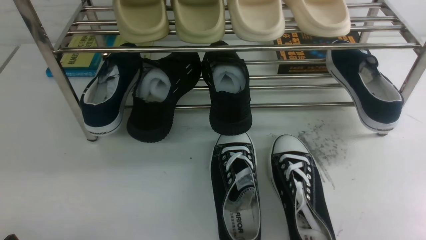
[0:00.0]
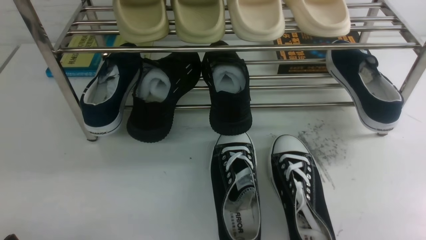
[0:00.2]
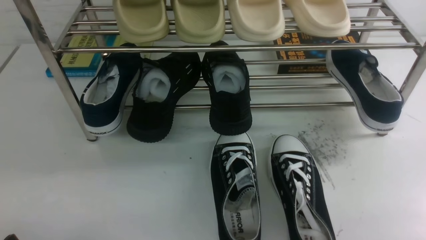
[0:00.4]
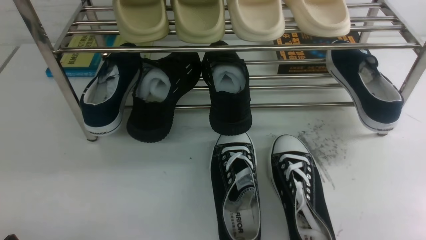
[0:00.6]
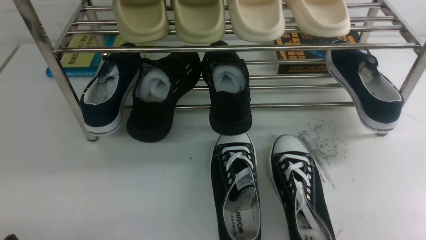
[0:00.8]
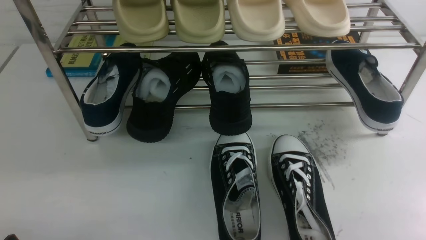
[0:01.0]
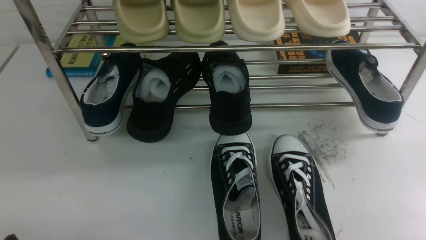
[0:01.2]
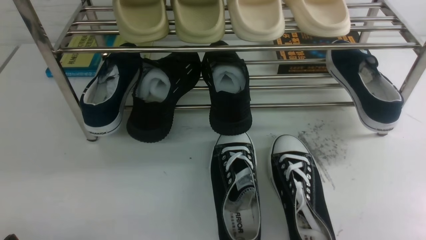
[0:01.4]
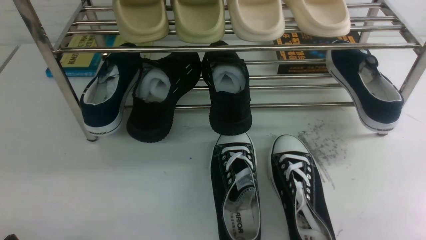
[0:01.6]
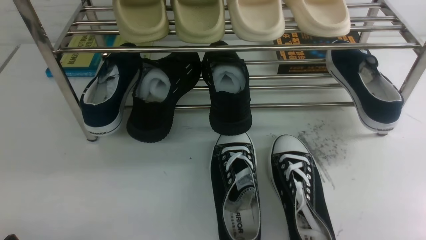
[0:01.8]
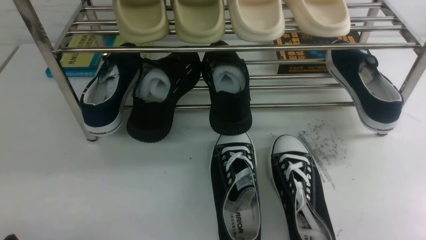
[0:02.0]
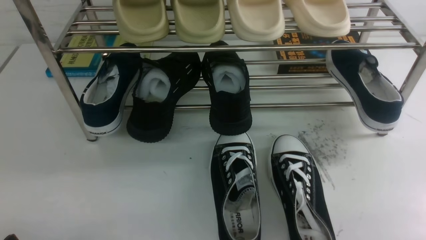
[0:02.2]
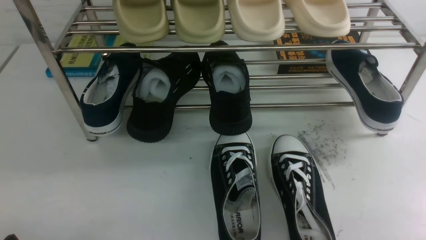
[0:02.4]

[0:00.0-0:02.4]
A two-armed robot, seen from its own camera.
0:00.0 to 0:02.4: The two grippers keep their place.

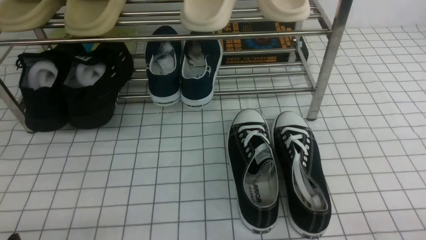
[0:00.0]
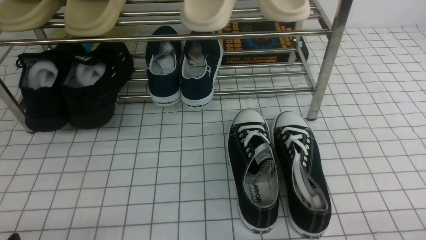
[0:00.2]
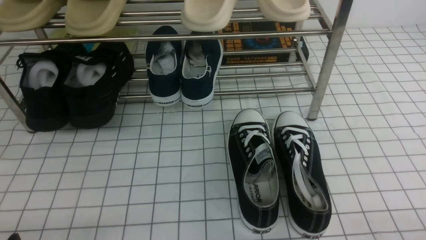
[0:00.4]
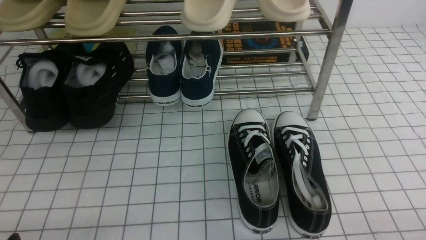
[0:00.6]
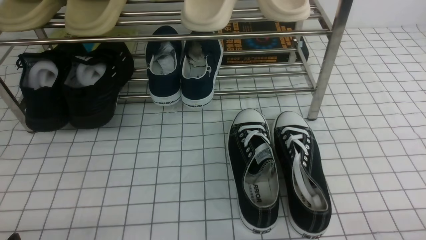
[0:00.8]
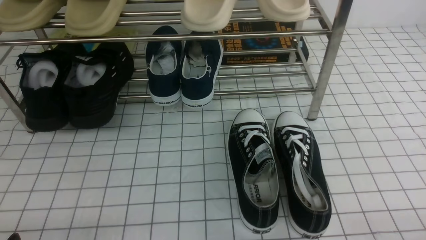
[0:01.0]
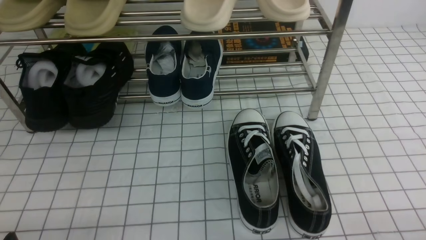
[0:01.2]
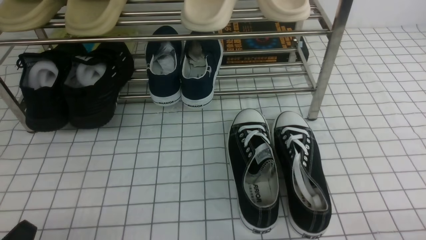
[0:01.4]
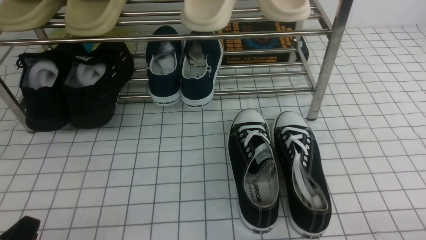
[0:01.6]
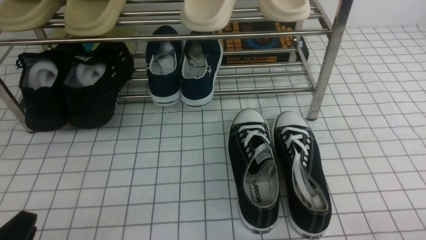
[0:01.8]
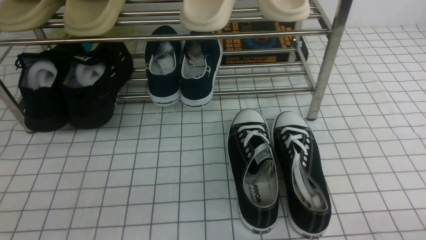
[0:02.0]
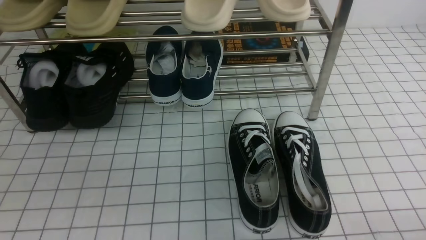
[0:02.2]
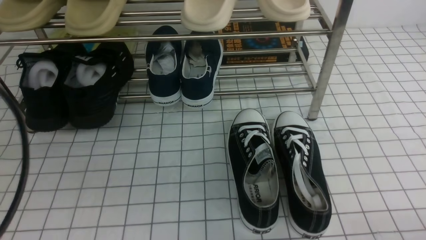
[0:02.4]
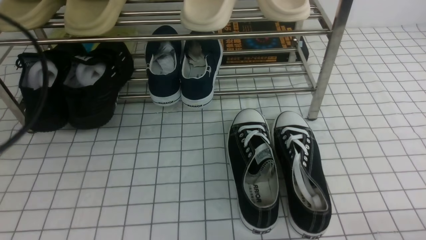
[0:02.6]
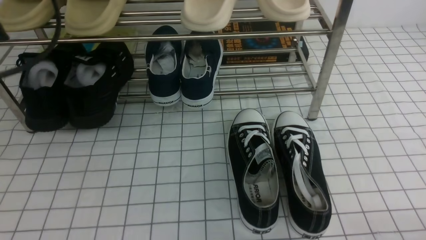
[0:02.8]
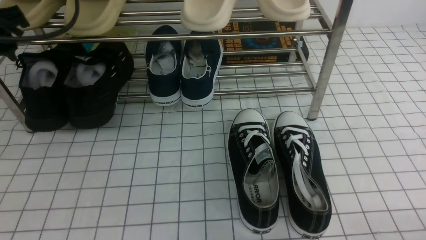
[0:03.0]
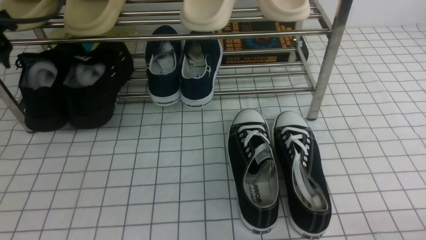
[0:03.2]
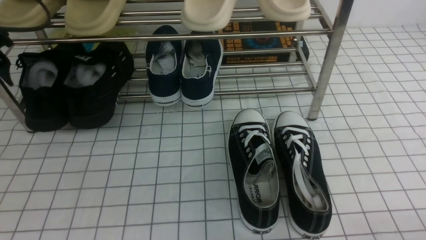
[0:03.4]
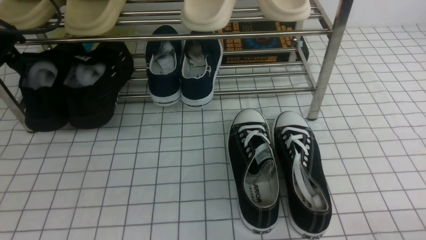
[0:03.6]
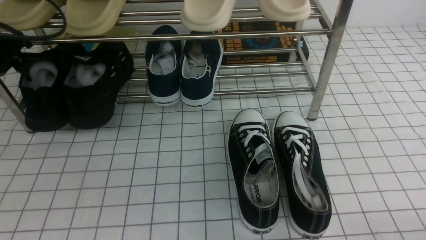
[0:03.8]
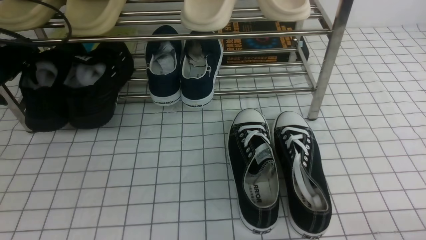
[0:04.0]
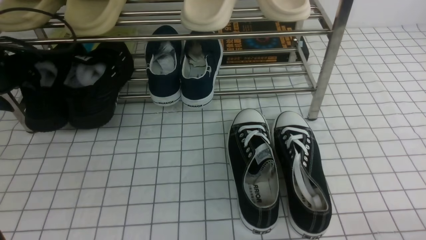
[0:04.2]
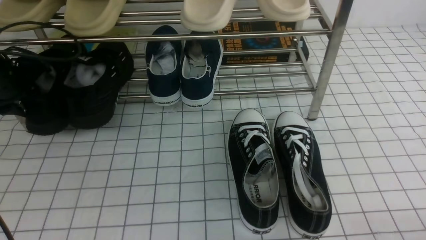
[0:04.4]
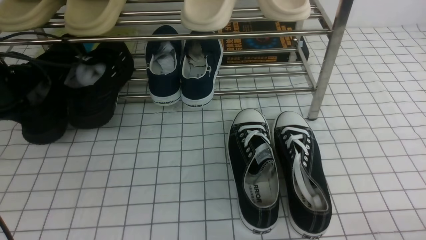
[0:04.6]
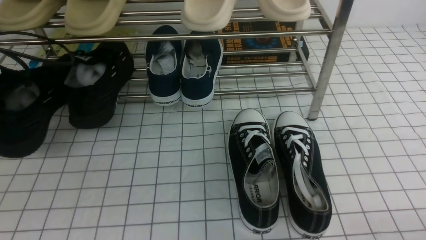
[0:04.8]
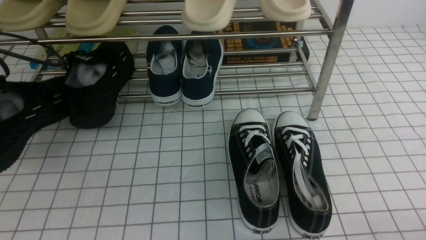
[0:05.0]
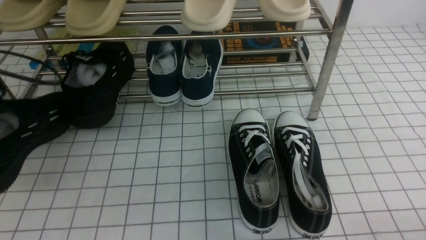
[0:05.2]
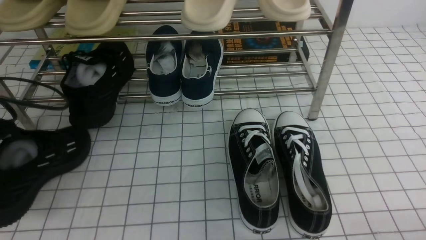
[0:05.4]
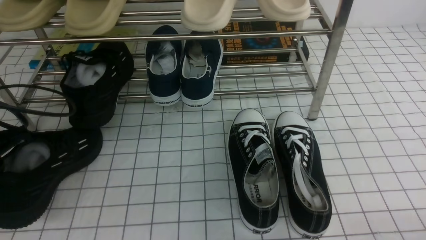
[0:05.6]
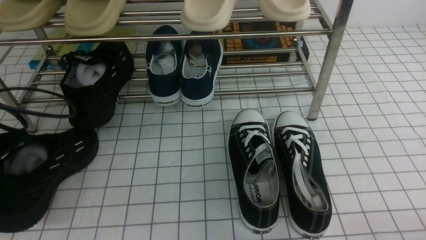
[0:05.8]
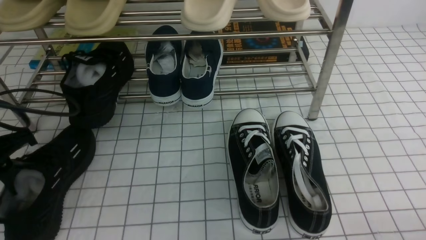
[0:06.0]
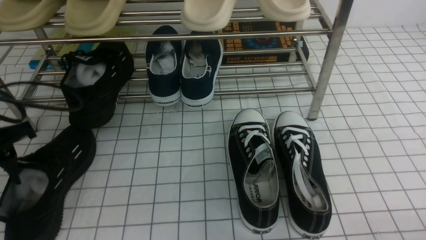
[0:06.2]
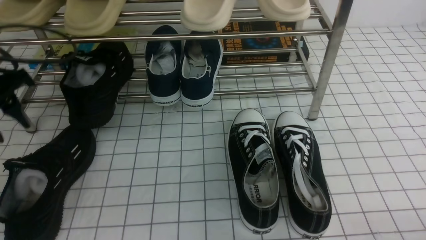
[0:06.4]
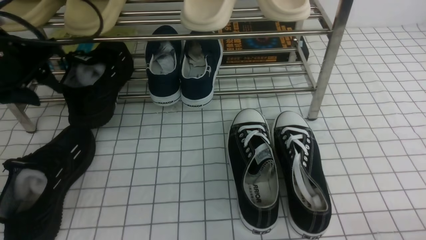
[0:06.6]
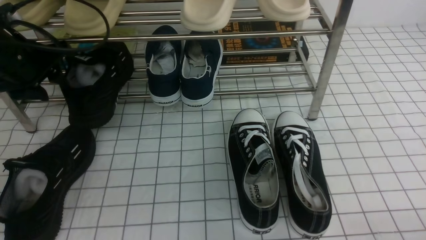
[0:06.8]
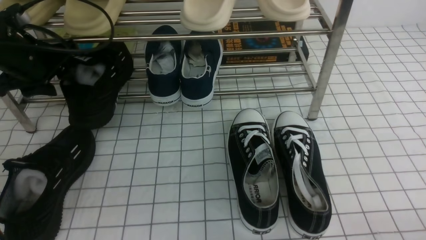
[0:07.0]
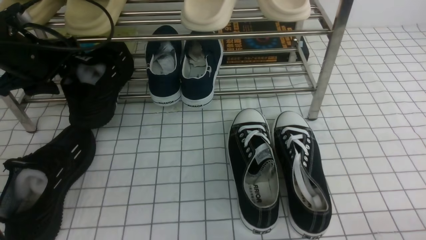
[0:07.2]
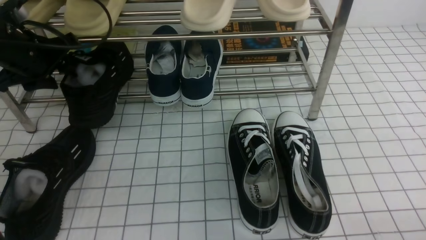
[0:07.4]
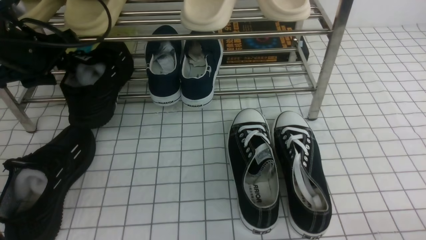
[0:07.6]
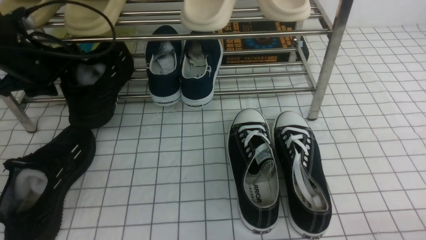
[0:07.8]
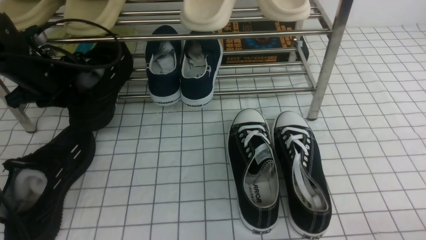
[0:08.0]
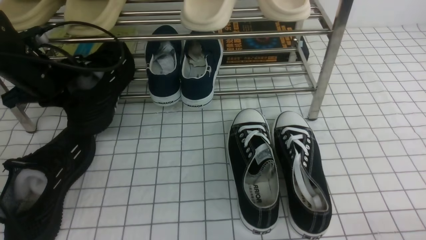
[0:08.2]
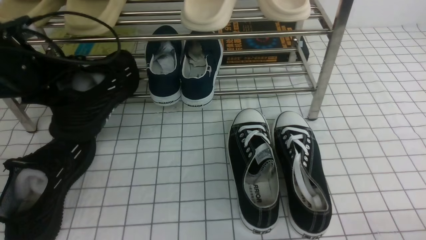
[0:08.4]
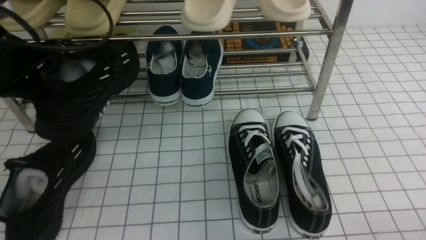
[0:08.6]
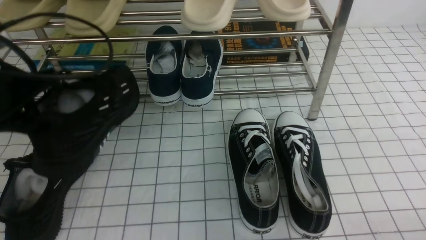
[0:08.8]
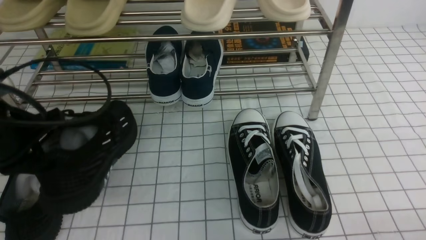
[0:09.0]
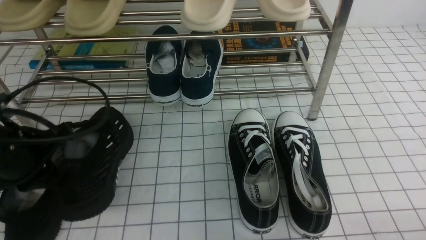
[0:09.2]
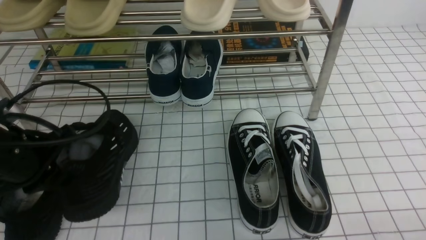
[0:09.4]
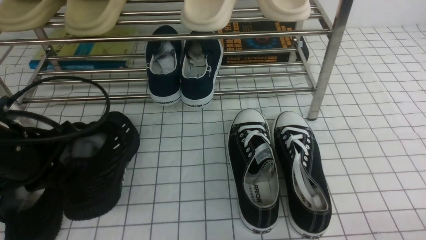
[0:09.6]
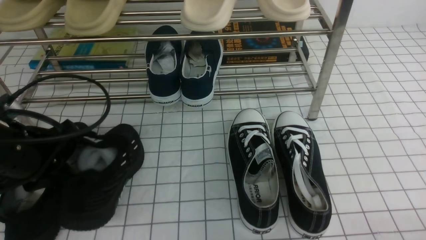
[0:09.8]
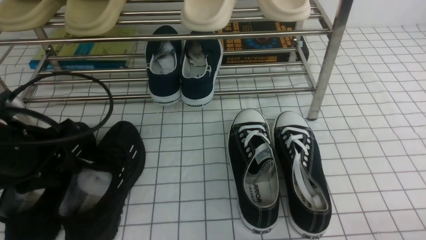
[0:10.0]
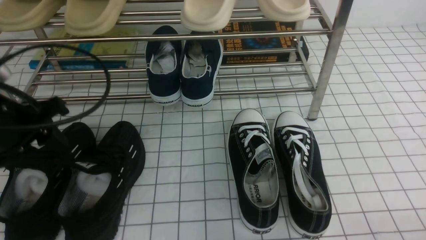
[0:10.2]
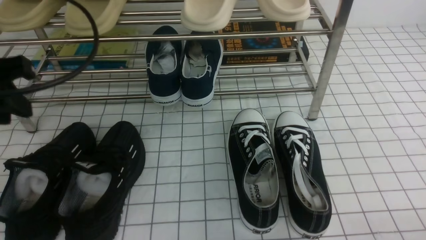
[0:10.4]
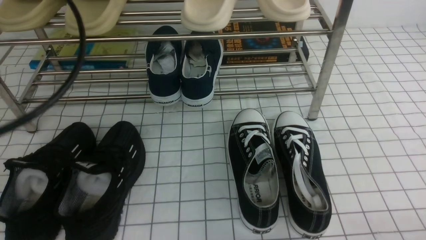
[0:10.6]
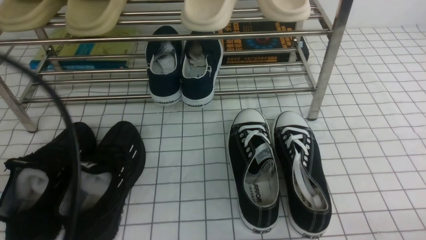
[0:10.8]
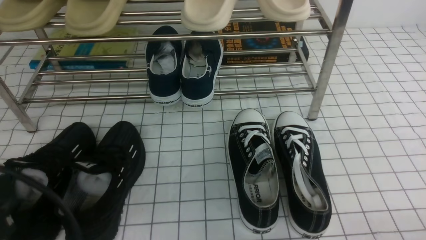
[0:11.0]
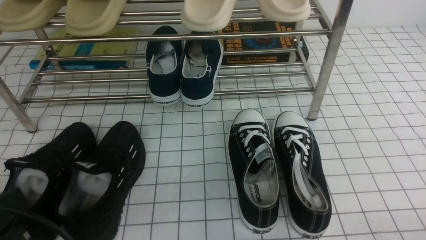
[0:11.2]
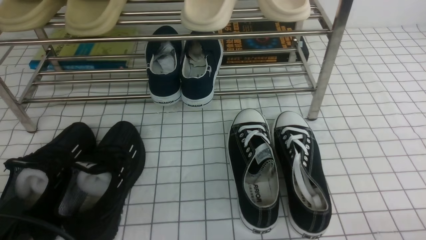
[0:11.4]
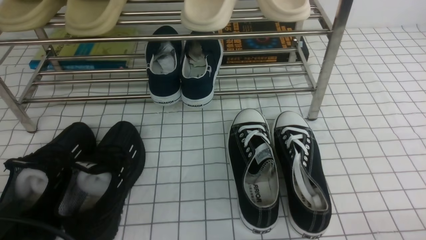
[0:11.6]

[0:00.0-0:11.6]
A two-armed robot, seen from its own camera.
Step, 0:00.0 to 0:04.4: use the left arm to clamp a shoe on the left side of the shoe rack.
Step, 0:04.8 to 0:06.2: Use your left arm to remove the clamped shoe from the shoe rack and put it down.
Step, 0:06.4 to 0:08.0: use the left arm to clamp a shoe on the left side of the shoe rack.
Step, 0:08.2 to 0:10.0: Use your left arm to remove the clamped shoe from the shoe rack and put it down.
0:01.4 to 0:02.8: The left gripper moves upward and forward, about 30 cm, and closes and opens again.
0:02.8 to 0:04.4: The left gripper goes about 20 cm forward, downward and to the left, and opens, then closes again.
0:04.4 to 0:05.8: The left gripper travels backward by about 10 cm.
0:05.8 to 0:07.2: The left gripper is displaced forward by roughly 10 cm, and opens up.
0:07.2 to 0:08.8: The left gripper heads backward, covering approximately 10 cm, and closes.
0:08.8 to 0:10.2: The left gripper opens up.
0:10.2 to 0:11.6: The left gripper goes some 20 cm backward and downward, and closes its fingers.

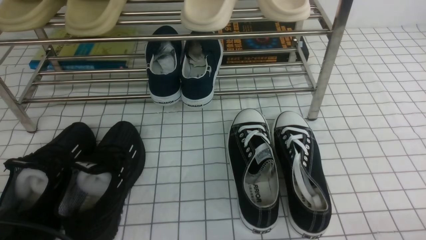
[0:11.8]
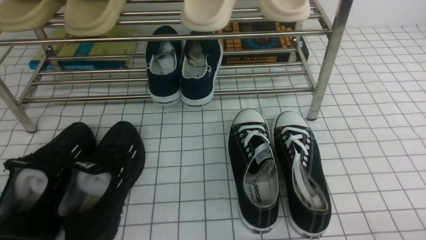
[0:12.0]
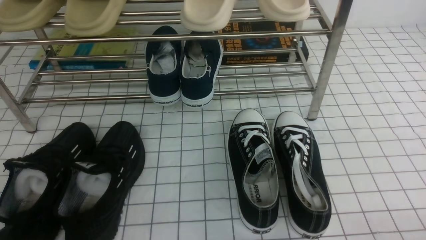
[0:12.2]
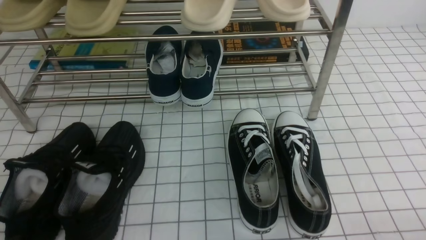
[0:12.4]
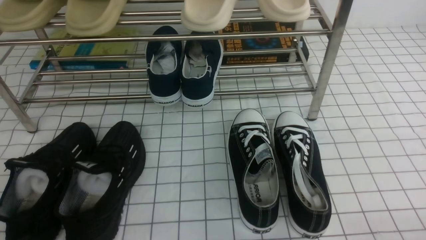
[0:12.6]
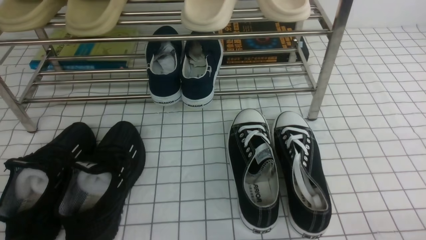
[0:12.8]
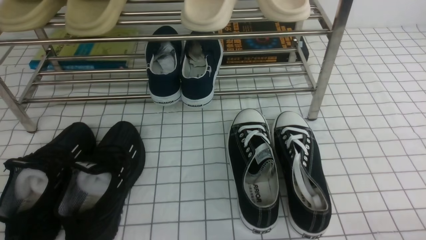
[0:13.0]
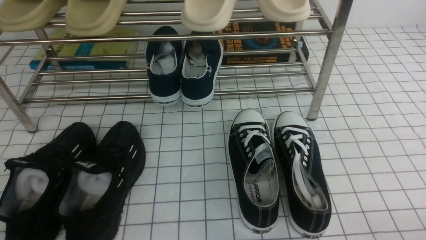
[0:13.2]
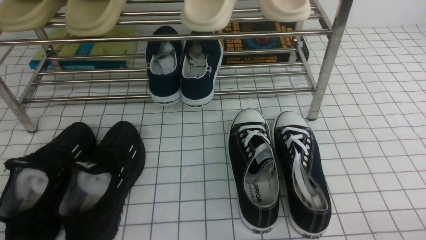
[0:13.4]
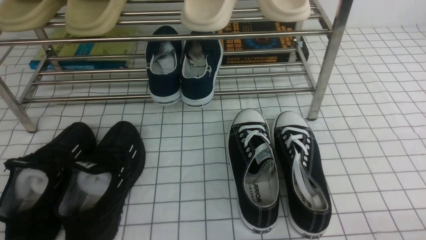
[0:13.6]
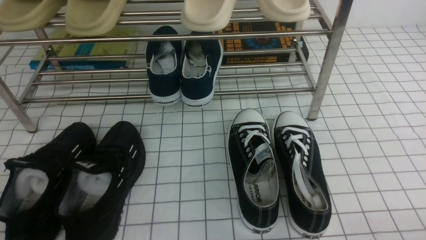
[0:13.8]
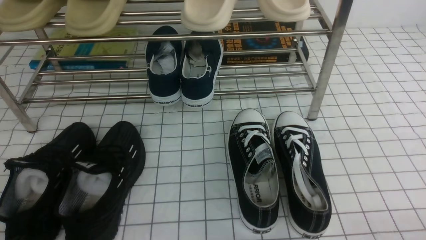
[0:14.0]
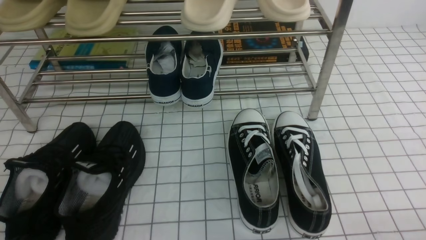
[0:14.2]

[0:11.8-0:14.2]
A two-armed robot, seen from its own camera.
0:13.0 to 0:14.2: Both grippers stay about where they are.
